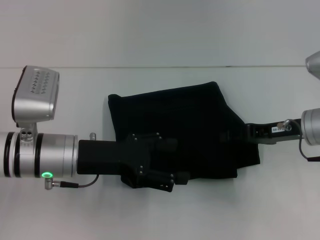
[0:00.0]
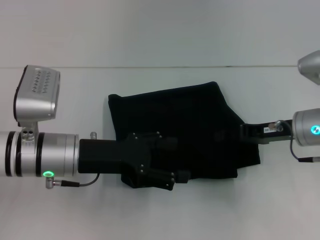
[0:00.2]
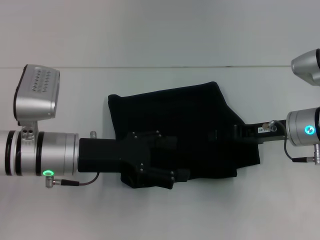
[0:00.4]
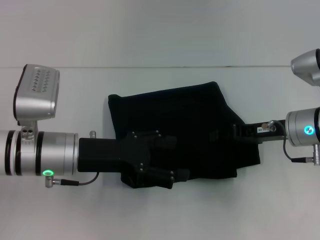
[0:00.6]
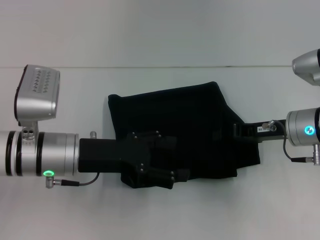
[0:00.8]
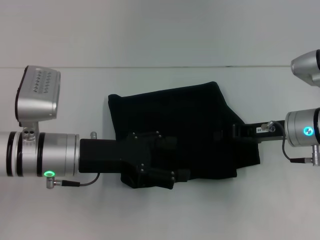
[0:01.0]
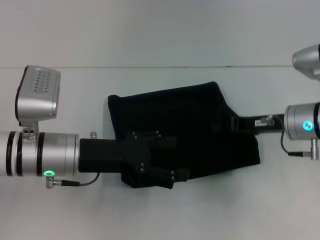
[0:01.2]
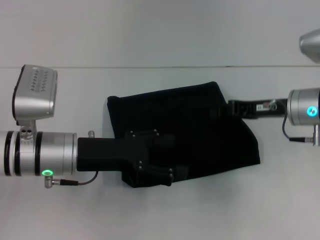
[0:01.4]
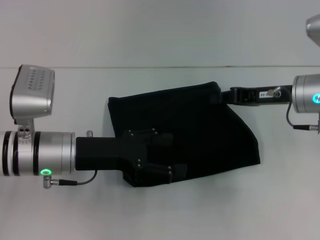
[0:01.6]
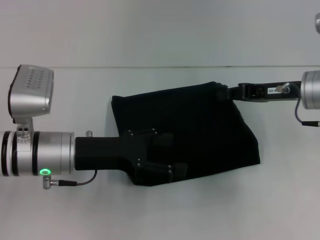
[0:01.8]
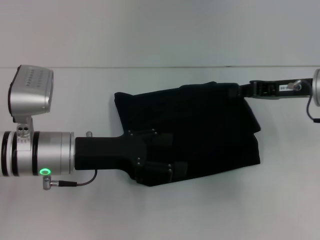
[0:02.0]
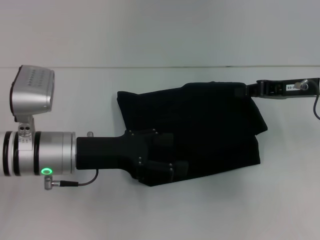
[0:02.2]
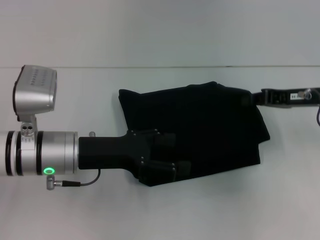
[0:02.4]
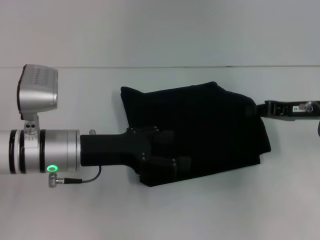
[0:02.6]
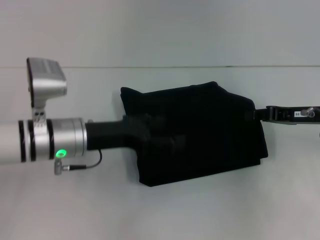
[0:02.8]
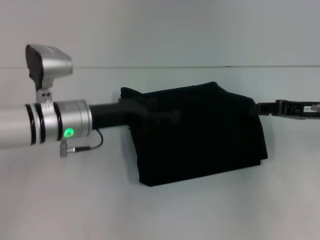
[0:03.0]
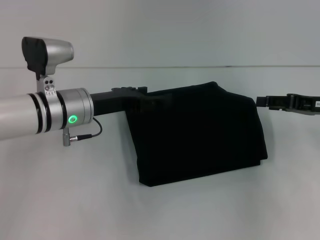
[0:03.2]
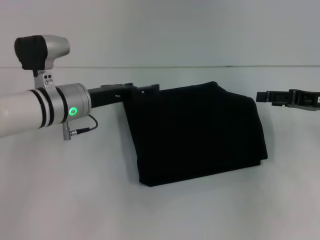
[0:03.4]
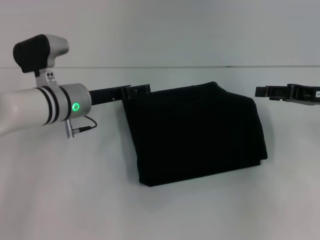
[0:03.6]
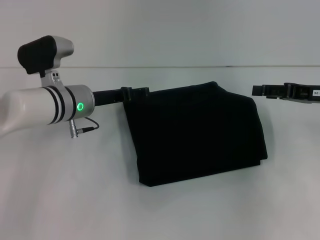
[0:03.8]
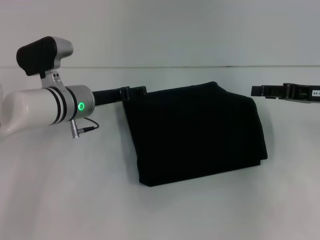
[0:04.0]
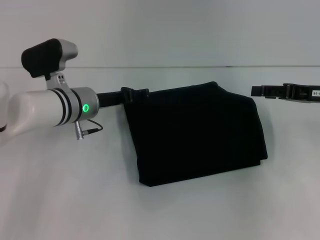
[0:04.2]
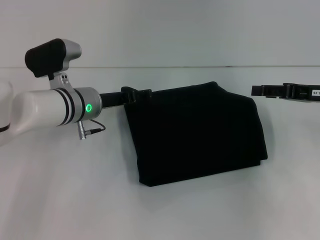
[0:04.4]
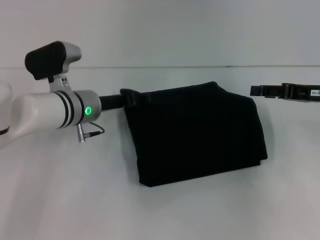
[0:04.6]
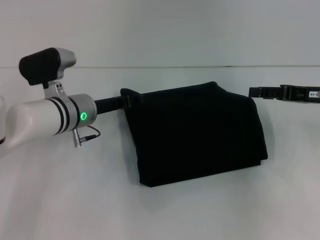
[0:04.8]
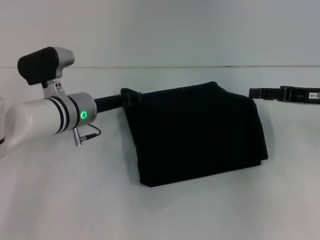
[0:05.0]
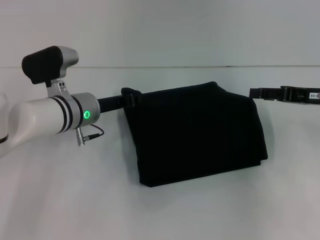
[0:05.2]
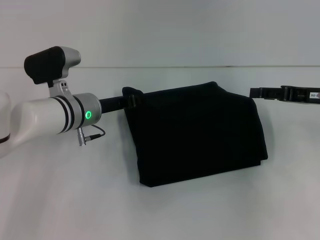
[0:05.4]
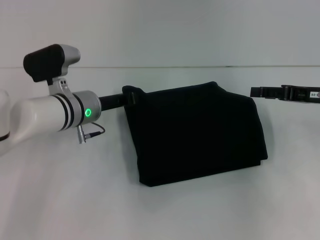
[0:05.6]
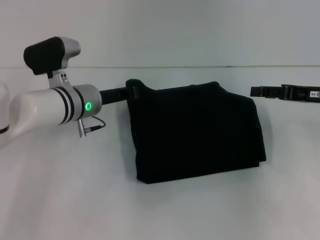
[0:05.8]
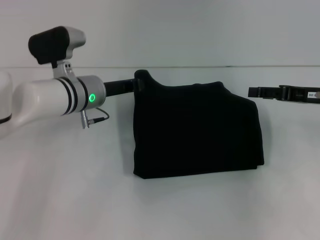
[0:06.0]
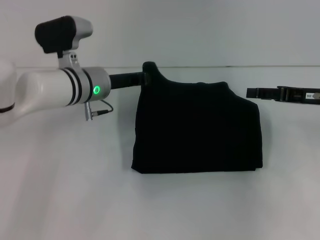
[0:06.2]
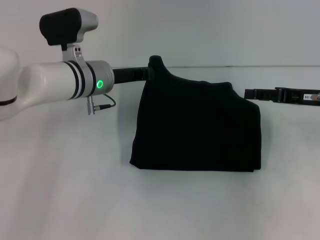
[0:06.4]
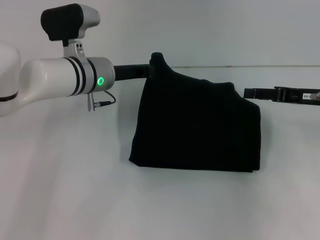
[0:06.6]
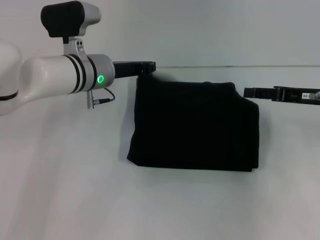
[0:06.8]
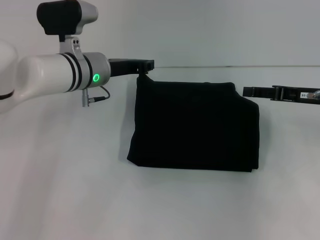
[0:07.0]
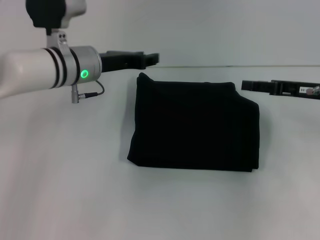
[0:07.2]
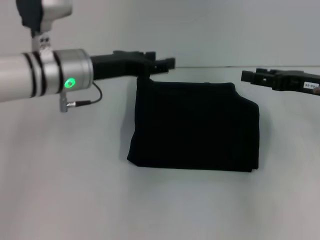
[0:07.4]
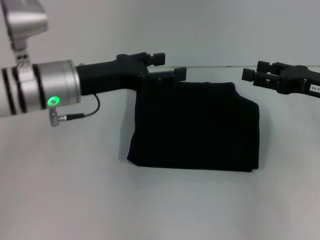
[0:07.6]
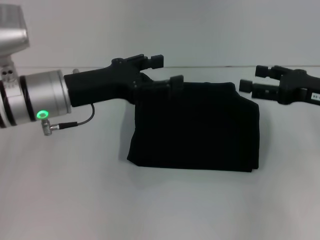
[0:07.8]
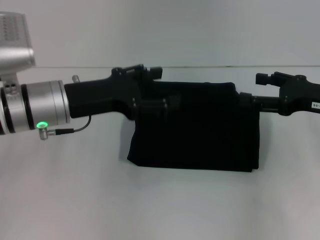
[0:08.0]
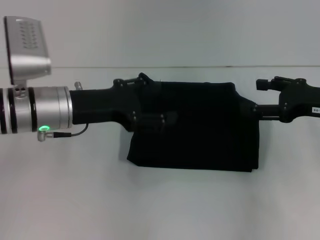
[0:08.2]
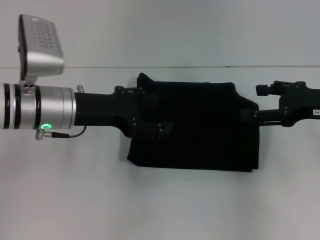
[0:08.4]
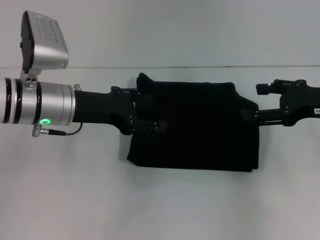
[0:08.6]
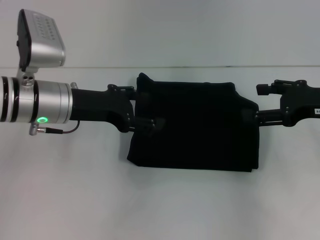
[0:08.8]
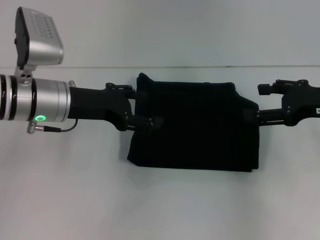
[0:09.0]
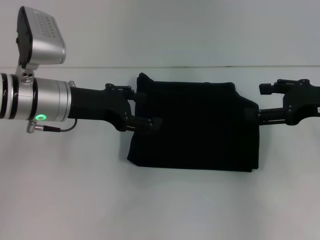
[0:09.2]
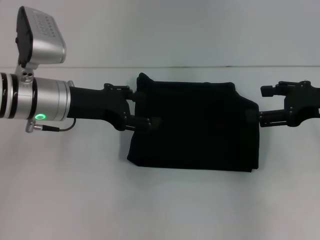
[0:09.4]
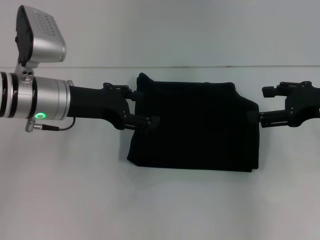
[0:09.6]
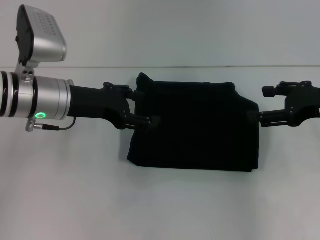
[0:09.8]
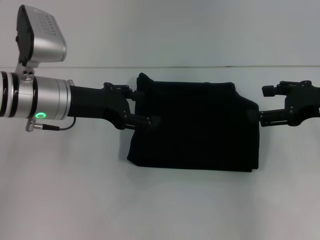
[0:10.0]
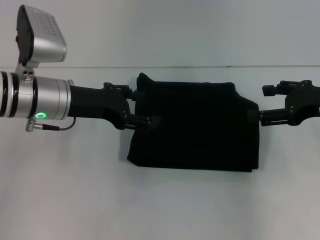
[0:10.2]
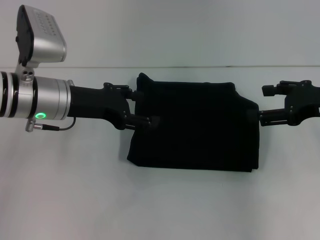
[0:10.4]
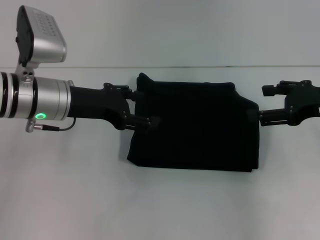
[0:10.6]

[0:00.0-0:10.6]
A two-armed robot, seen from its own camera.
0:00.0 to 0:01.6: The right gripper closes up.
0:01.6 to 0:03.0: The right gripper shifts some 5 cm to the right.
0:03.0 to 0:04.6: The left gripper travels forward by roughly 5 cm, while the right gripper opens up.
0:04.6 to 0:06.0: The left gripper closes up.
0:06.0 to 0:07.6: The left gripper travels upward and backward by roughly 10 cm, and opens.
0:09.0 to 0:10.6: Both grippers stay about where they are.

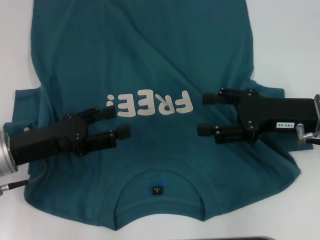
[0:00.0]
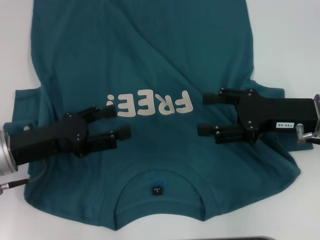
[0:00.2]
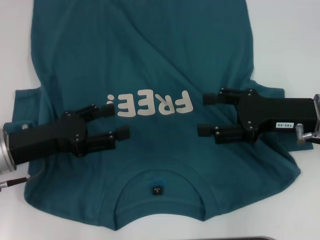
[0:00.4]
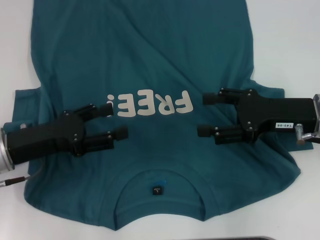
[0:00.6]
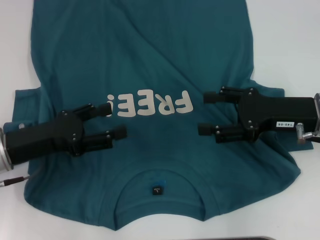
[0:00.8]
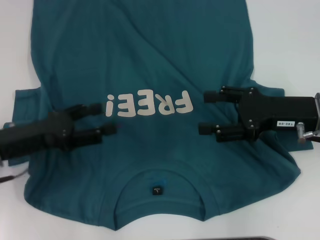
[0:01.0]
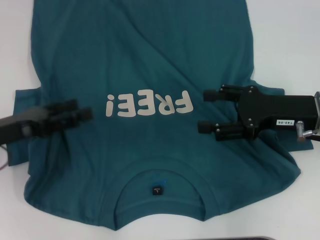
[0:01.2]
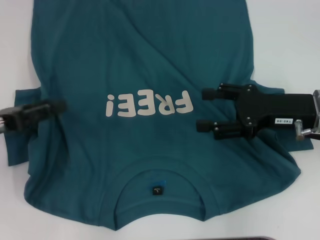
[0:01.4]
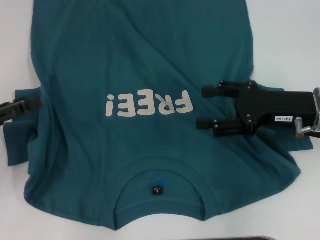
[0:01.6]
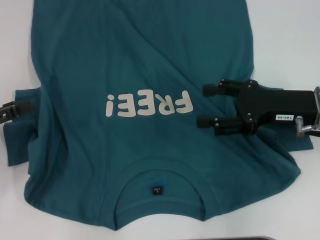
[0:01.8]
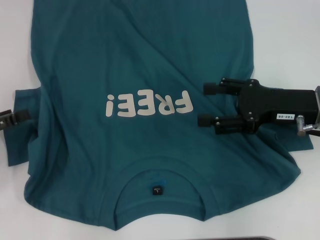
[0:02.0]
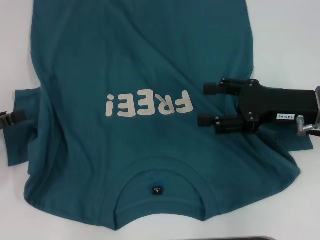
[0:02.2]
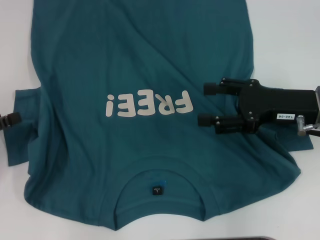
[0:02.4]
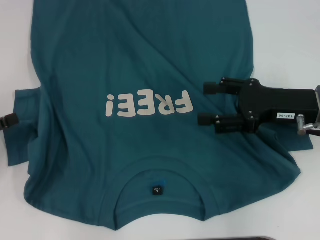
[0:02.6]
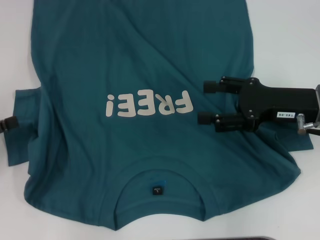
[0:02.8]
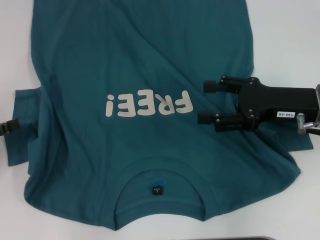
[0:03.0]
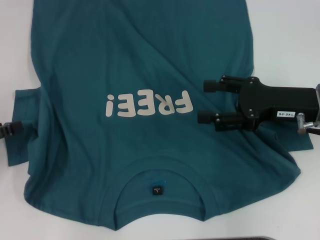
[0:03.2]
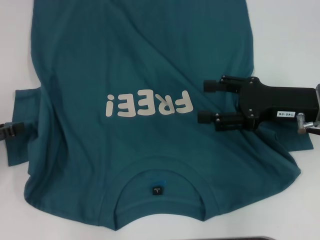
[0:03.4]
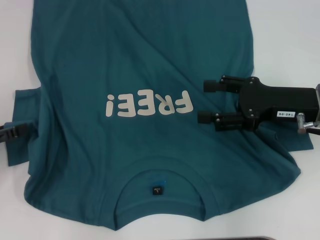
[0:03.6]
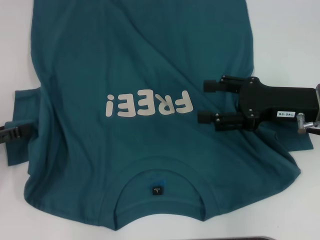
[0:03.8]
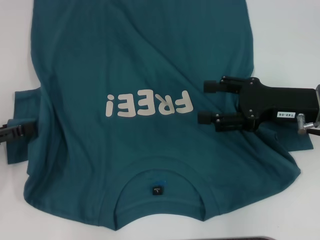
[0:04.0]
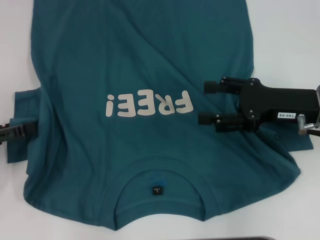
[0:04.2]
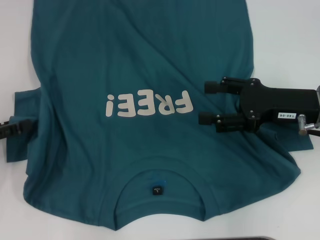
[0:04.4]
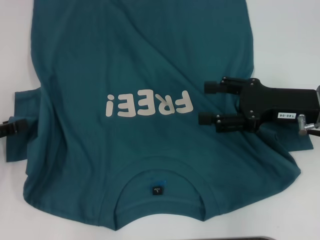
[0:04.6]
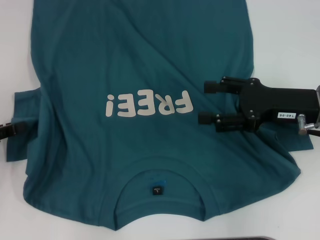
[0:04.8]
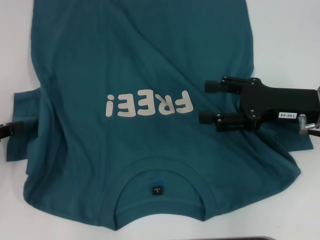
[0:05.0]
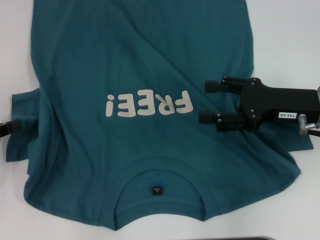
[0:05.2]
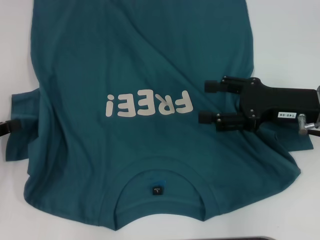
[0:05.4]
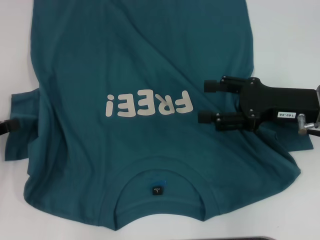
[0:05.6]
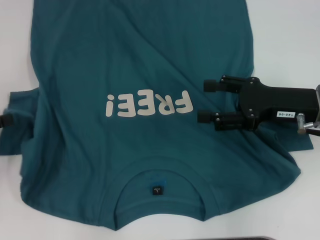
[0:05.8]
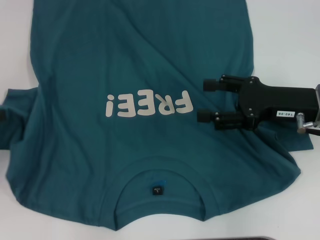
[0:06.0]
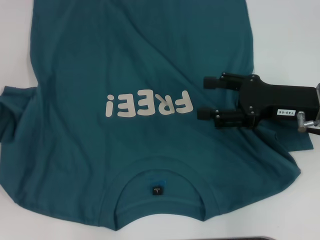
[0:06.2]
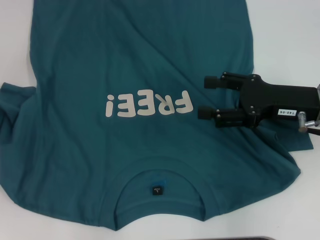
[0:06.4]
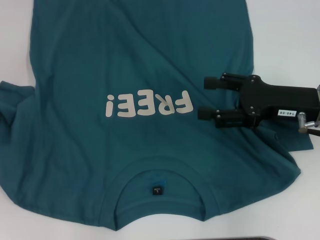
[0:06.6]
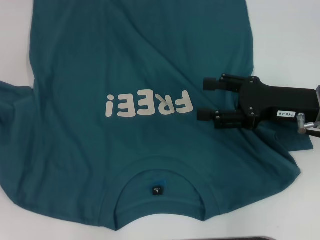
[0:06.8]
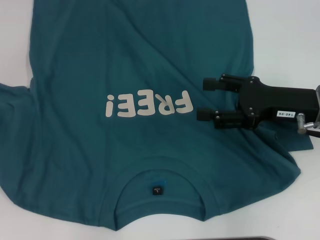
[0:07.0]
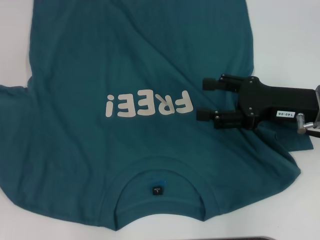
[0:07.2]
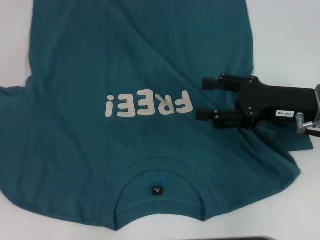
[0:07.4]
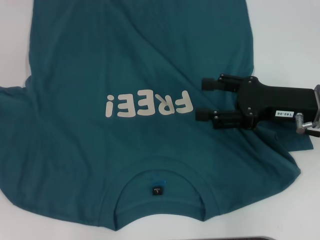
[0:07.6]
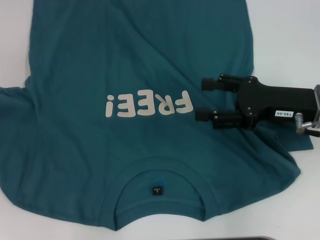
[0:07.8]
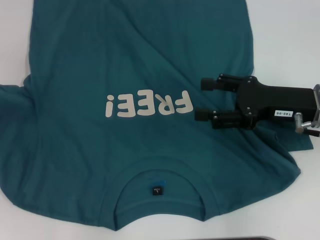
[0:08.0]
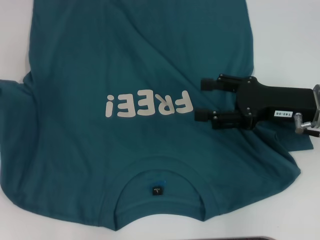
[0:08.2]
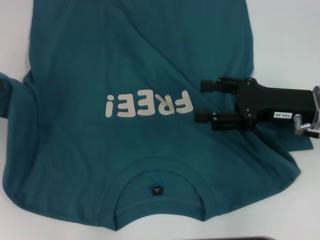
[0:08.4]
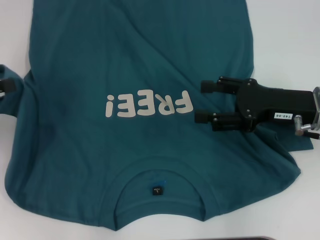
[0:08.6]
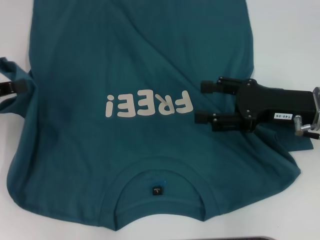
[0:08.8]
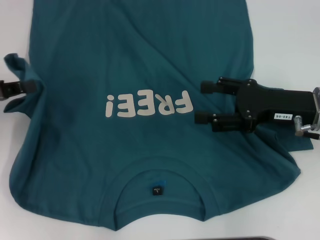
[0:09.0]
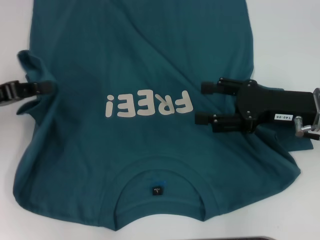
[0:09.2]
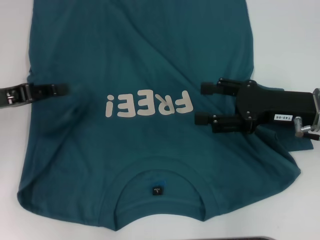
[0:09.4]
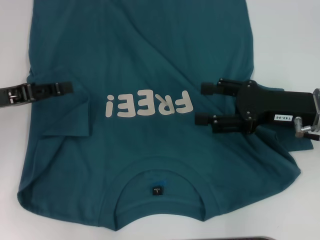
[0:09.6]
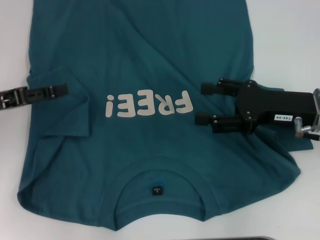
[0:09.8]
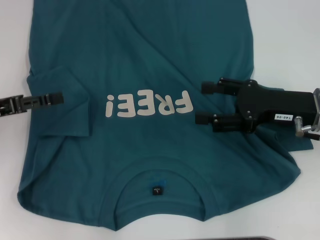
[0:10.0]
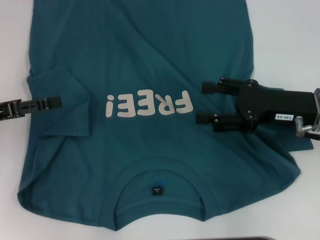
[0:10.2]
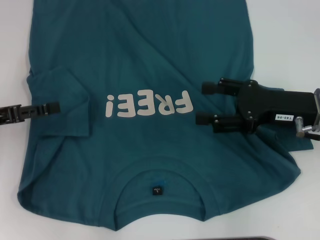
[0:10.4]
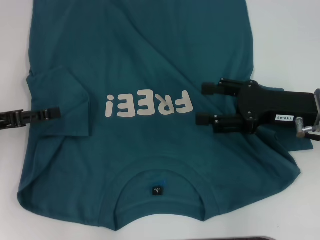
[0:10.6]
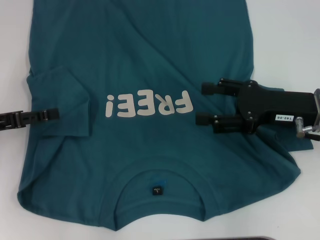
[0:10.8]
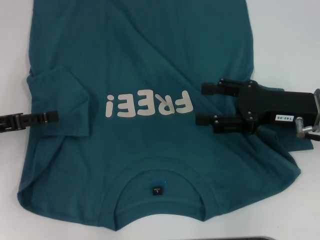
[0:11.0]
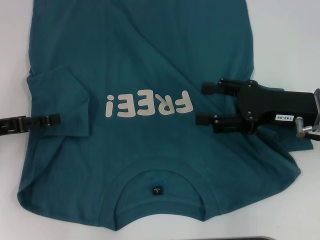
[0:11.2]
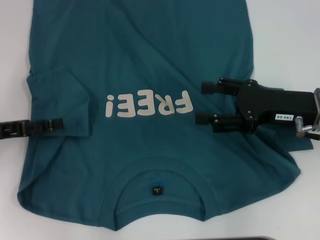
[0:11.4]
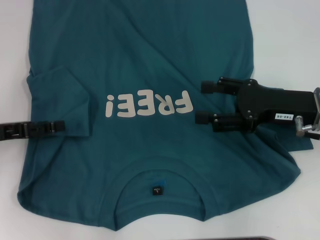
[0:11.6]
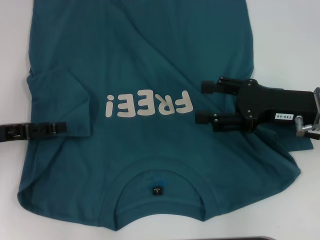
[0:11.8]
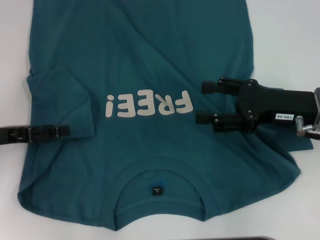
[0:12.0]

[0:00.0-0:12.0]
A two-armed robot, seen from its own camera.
Step, 0:00.0 to 0:11.0: Fold the bottom left sleeve with your left hand.
0:00.0 to 0:01.6: The left gripper moves to the left, about 10 cm.
0:01.6 to 0:04.4: There are only small adjustments of the grippers.
0:04.4 to 0:06.0: The left gripper closes.
0:06.0 to 0:07.6: There are only small adjustments of the grippers.
0:07.6 to 0:09.0: The left gripper travels to the right by roughly 5 cm.
0:09.0 to 0:10.4: The left gripper opens up.
0:10.4 to 0:12.0: There are only small adjustments of the grippers.
